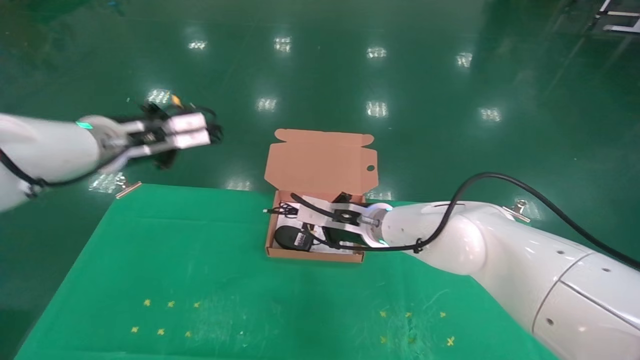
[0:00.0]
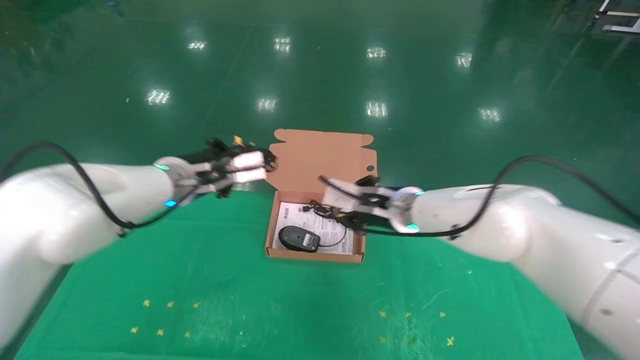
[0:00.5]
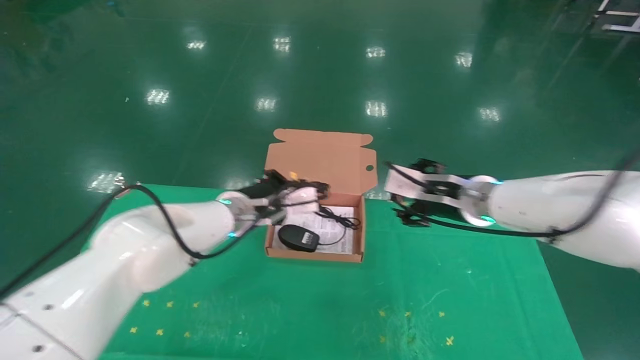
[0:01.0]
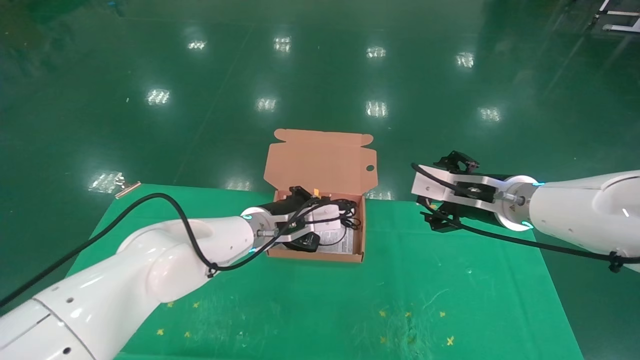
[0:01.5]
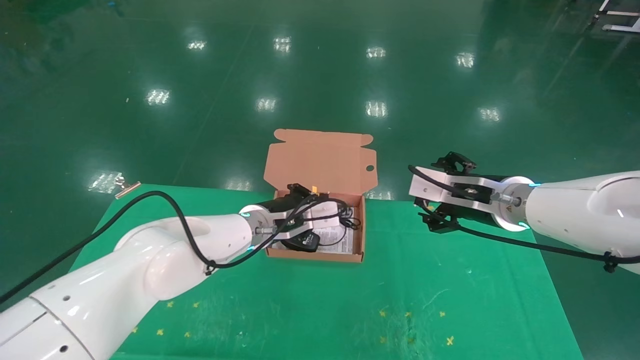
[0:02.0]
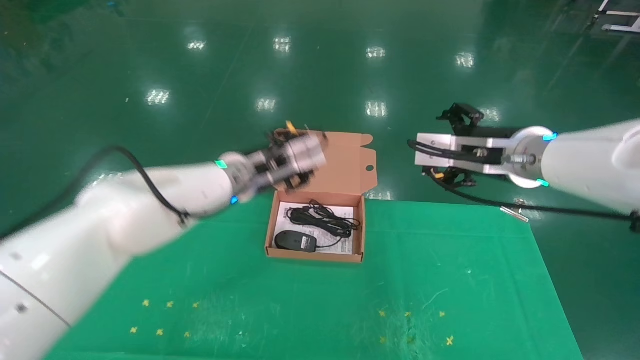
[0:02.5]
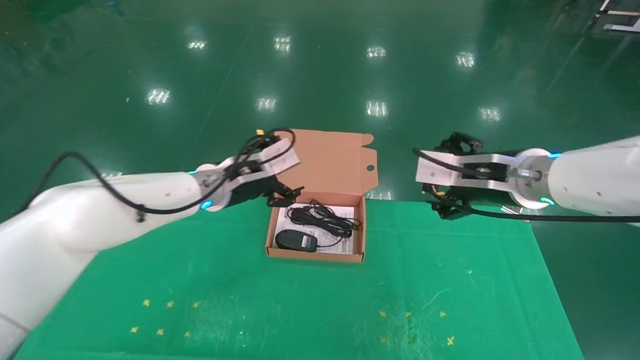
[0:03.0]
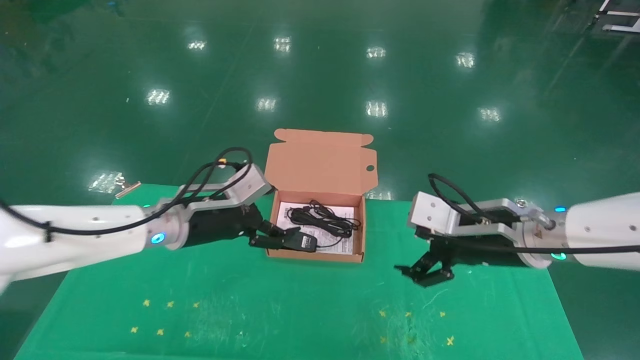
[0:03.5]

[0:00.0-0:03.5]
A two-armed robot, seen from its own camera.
Task of the whole recording: grasp data cable left put into box grasp mouse right put into box.
Step, 0:00.0 to 0:02.0: Place the mouse and power cord into the box.
0:00.0 to 0:02.0: The left gripper heads to the right and downward, covering roughly 20 cm. The right gripper travels to the right, backward and upward by about 20 cm, and opens.
0:02.0 to 0:03.5: The right gripper moves backward, about 5 cm, and moves roughly 5 cm upward and comes back. Meanwhile the left gripper goes some 10 cm to the left, and opens.
